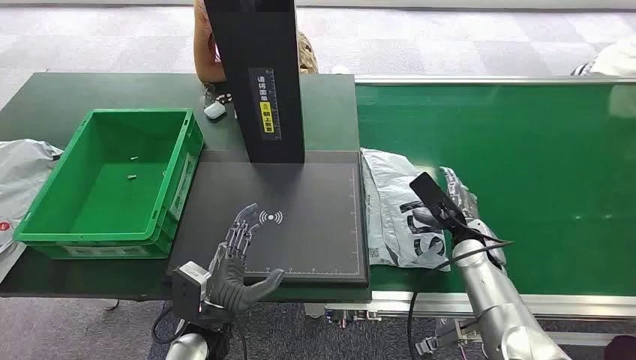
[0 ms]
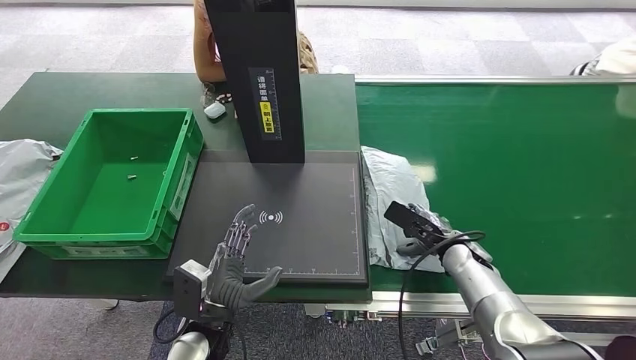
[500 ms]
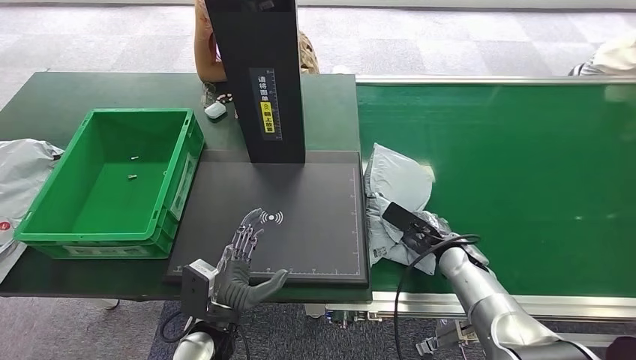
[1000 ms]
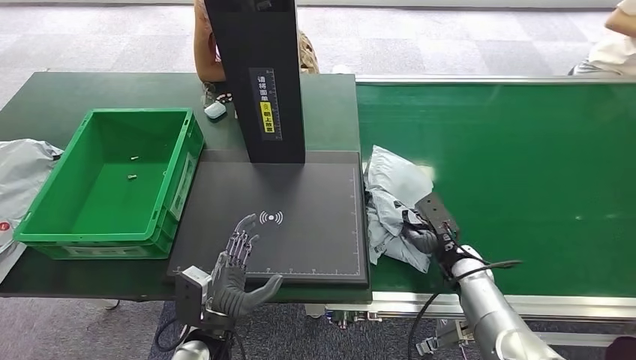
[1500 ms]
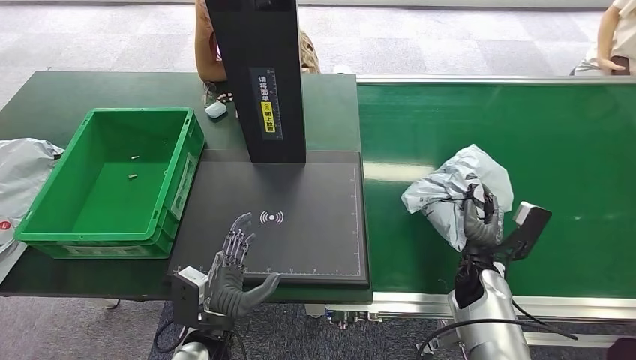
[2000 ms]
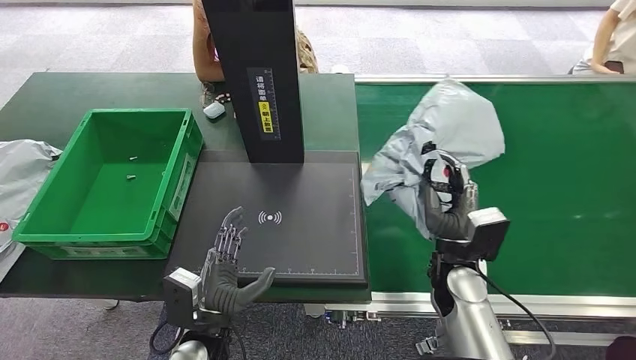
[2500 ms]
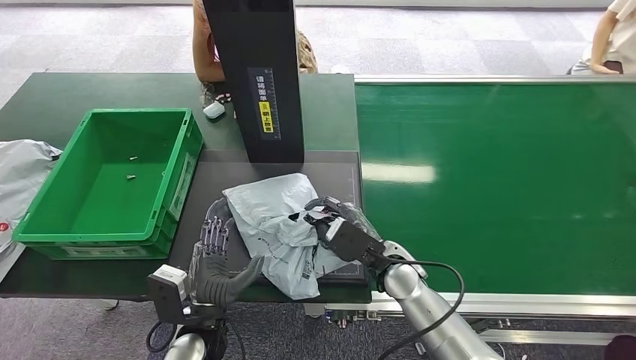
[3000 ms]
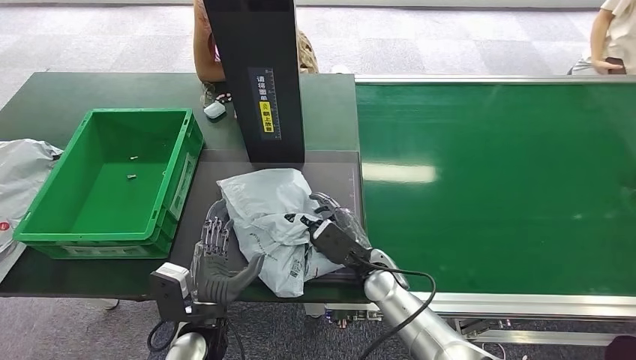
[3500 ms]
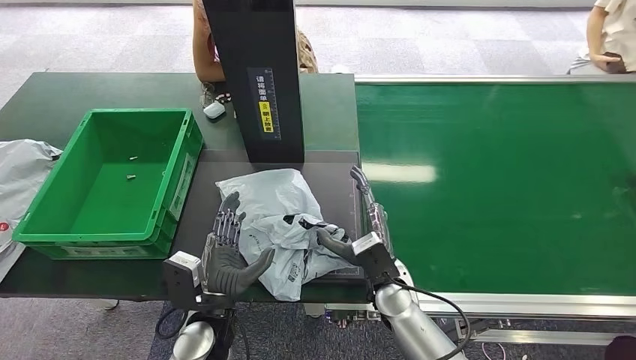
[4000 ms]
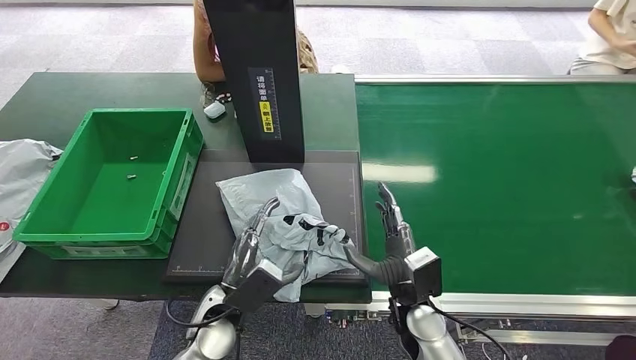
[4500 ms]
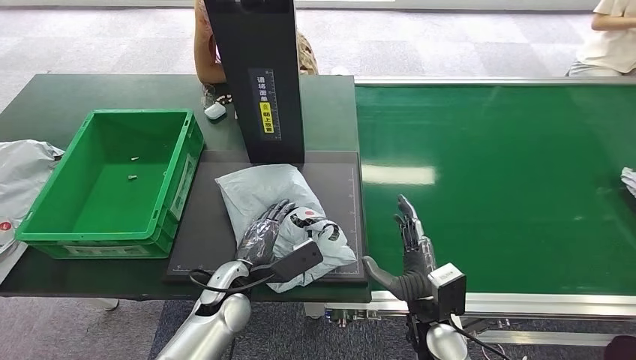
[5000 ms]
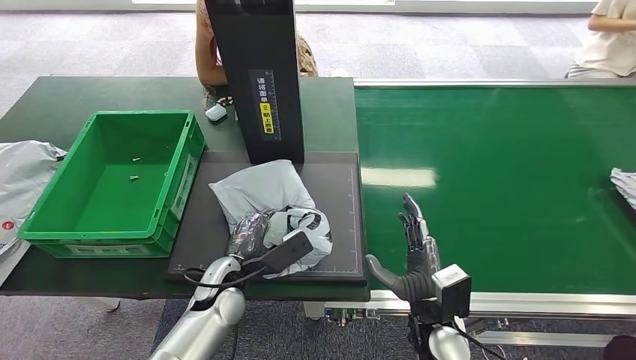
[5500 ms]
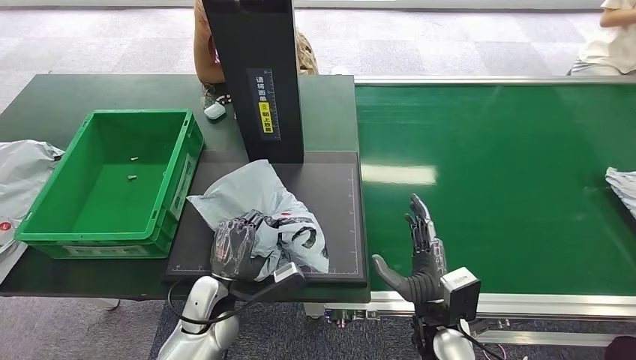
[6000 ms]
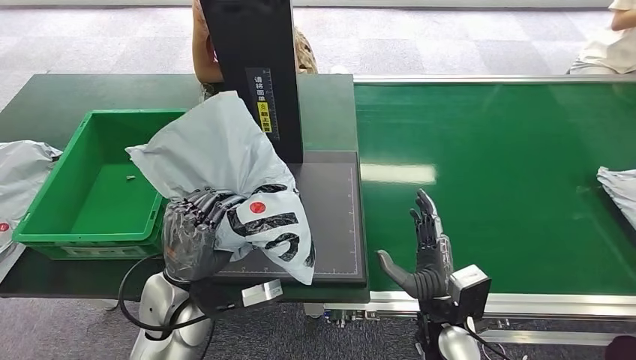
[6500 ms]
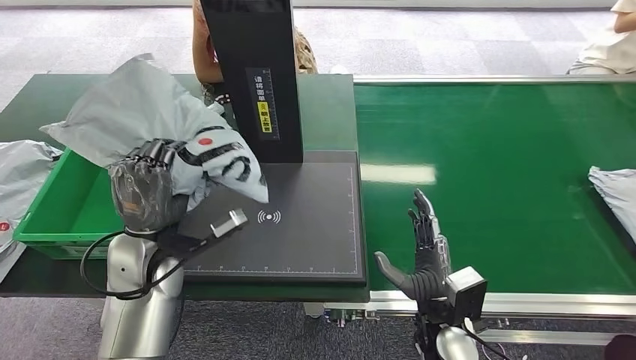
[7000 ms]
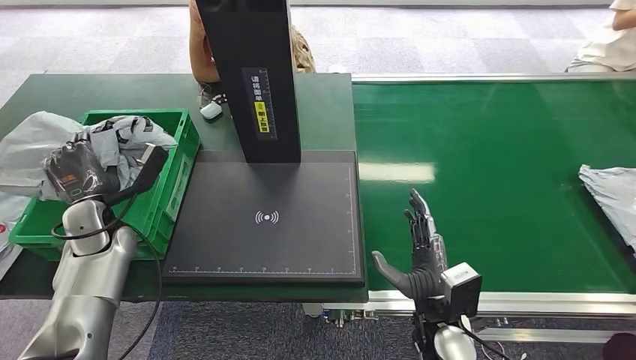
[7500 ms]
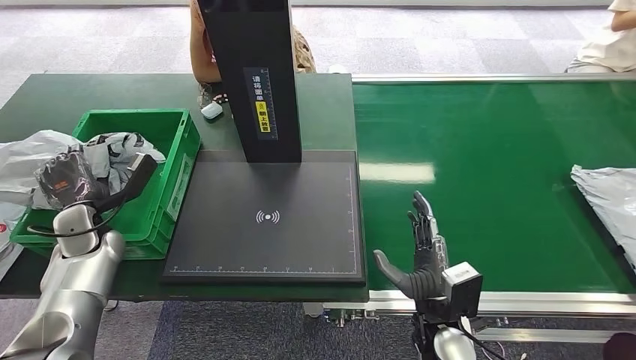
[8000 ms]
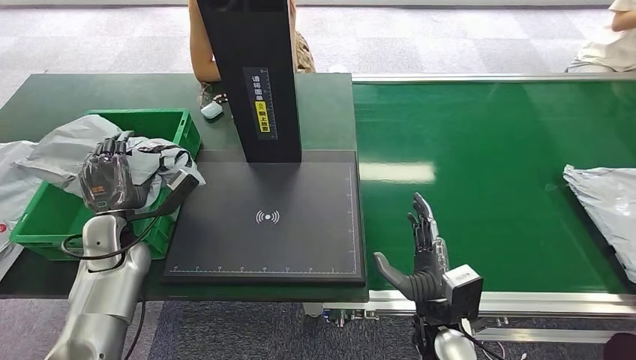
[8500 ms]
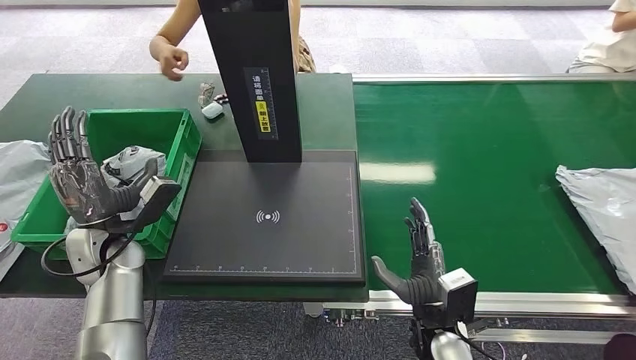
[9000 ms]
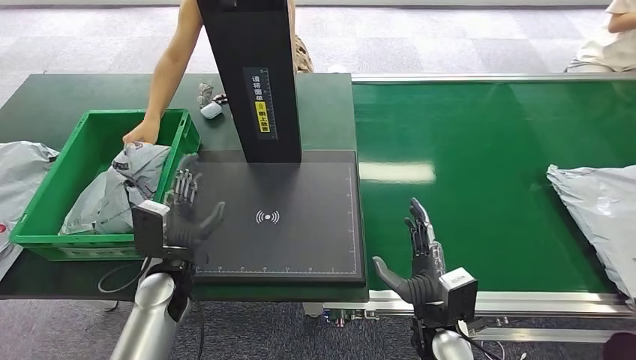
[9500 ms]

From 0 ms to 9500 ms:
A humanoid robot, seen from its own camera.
Step, from 0 ms to 2500 ms: Pick up the package from the conveyor belt.
Step, from 3000 ms to 4000 ms: Place the package onto the inbound machine.
Step, from 4500 ms to 6500 ms: Pick up the package from the inbound machine.
Step, from 7000 ms to 9500 ms: Place the package into the parcel locker.
From 7500 ms to 9500 ms: The left hand travels to the right, backward and downward by some 15 cm.

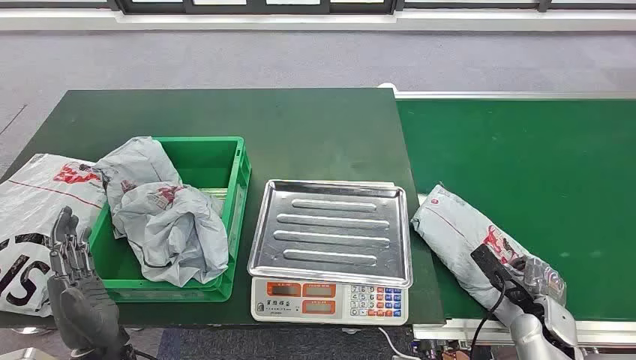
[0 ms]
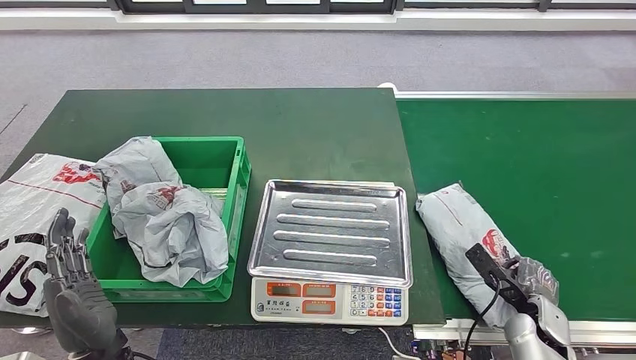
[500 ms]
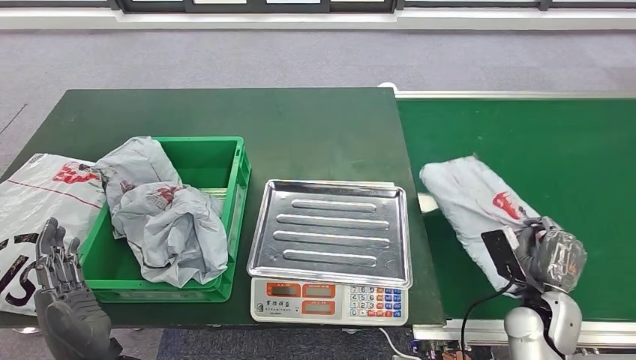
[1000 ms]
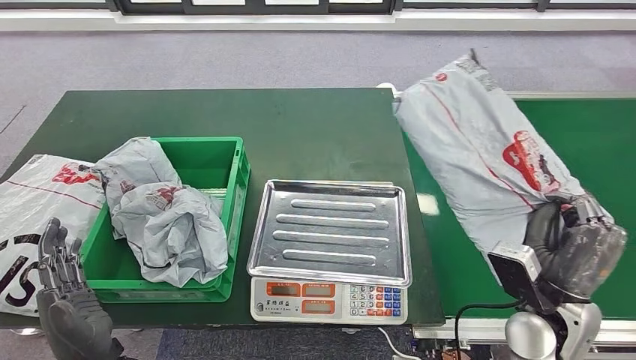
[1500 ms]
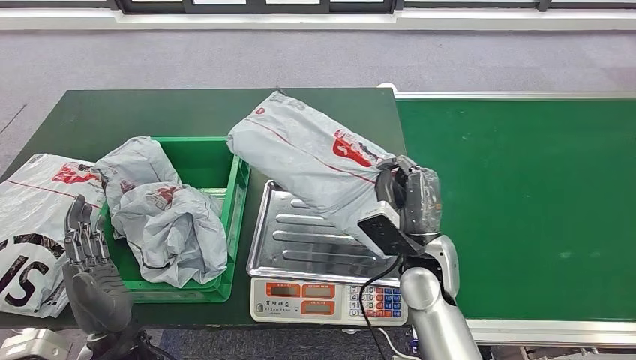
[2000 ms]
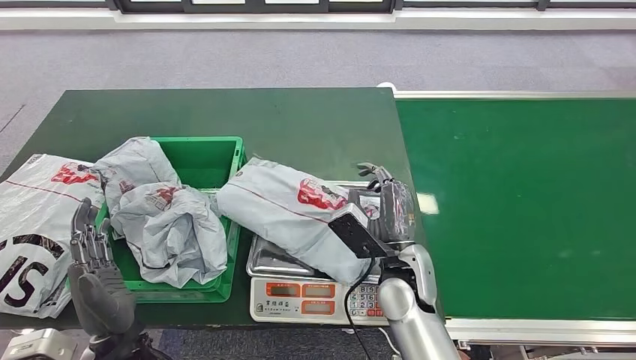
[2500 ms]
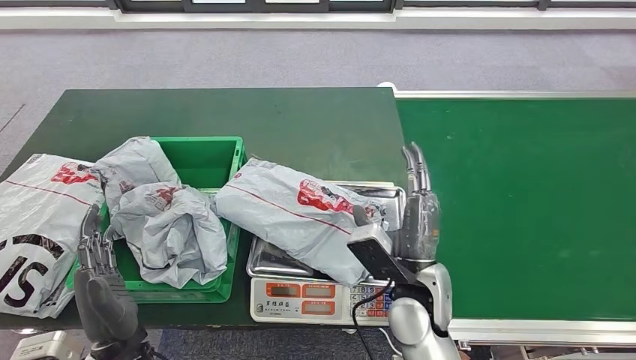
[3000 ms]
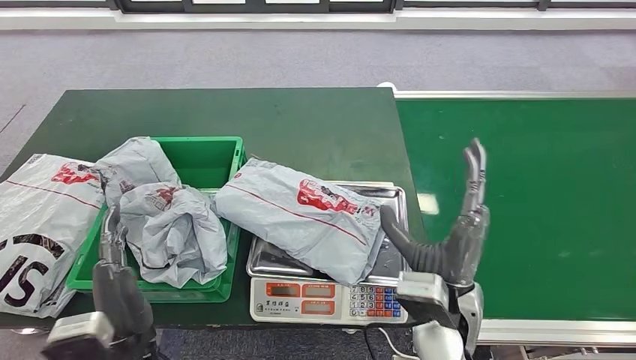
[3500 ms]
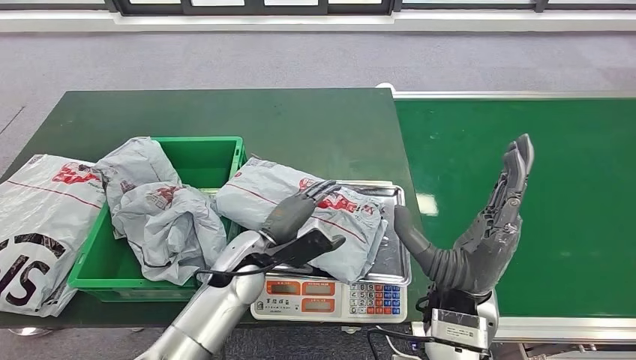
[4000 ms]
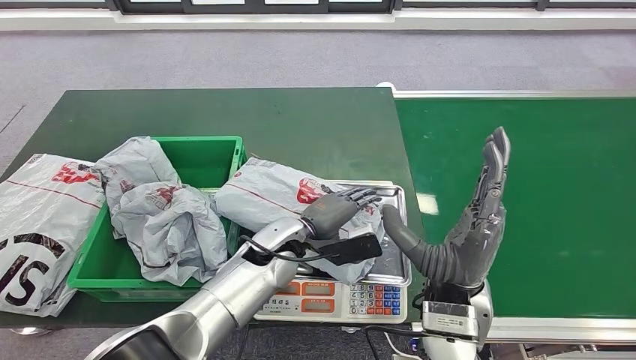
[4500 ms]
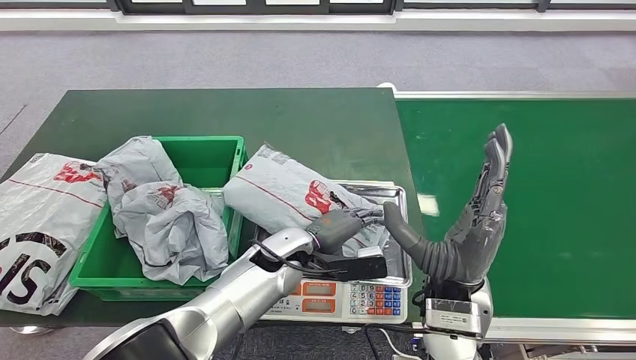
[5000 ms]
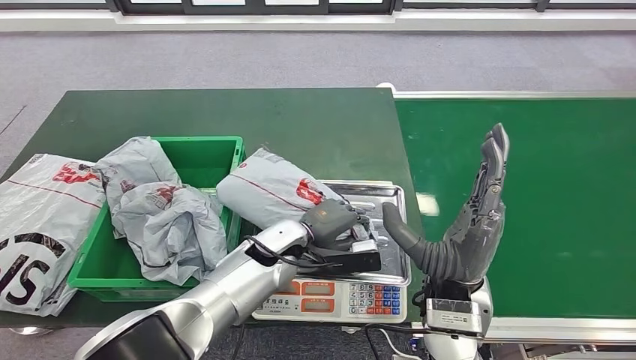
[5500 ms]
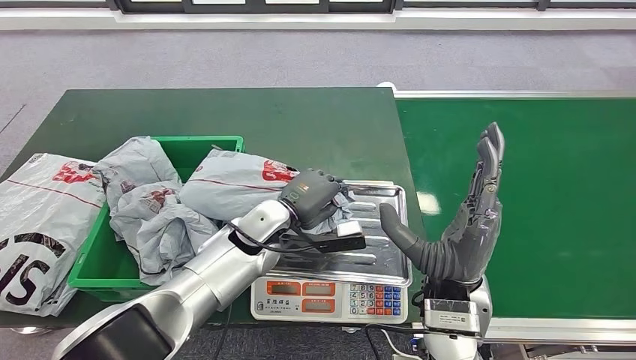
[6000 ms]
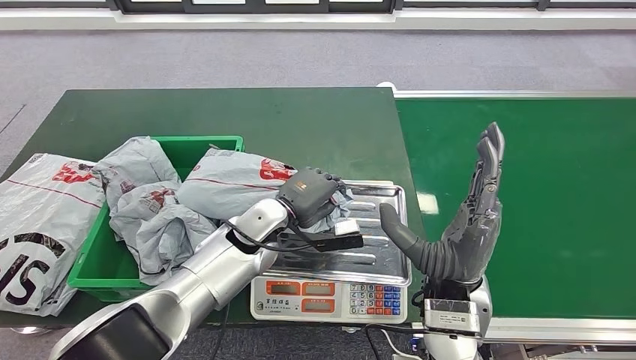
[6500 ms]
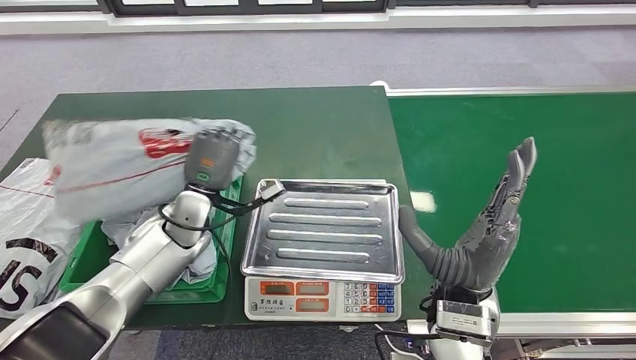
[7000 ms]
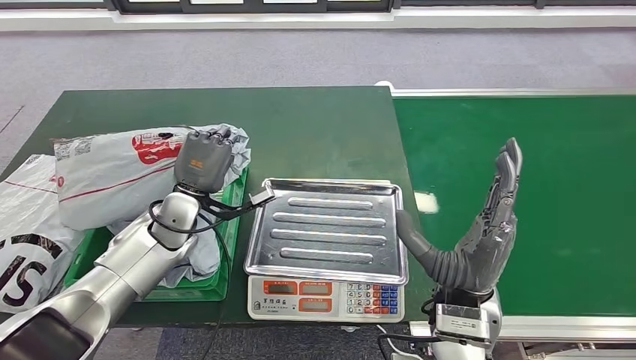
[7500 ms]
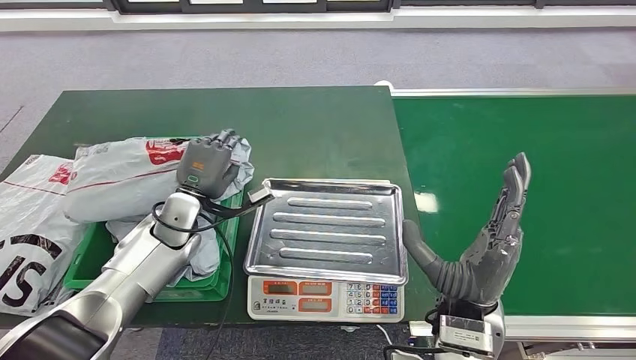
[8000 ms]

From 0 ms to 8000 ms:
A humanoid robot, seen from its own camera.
Step, from 0 ms to 1000 ms: Pick up the package from the conveyor belt.
Step, from 1500 ms to 3000 ms: Place the package onto the inbound machine.
Step, from 3500 ms to 7500 ms: Pick up the package from the inbound machine.
